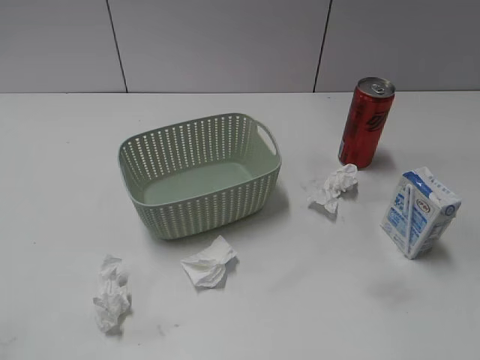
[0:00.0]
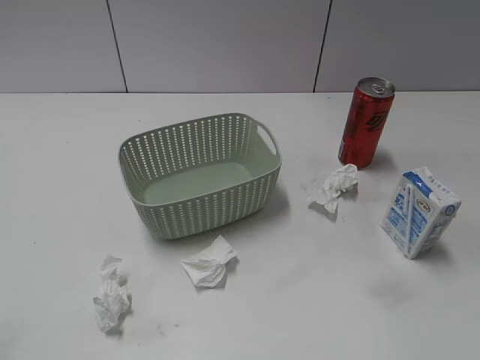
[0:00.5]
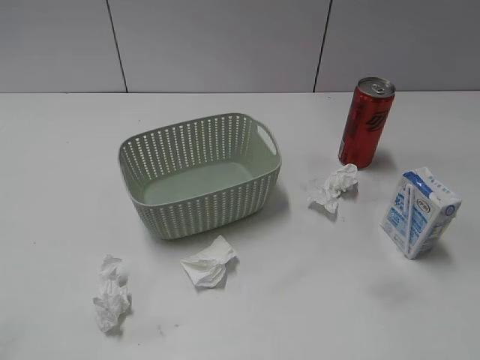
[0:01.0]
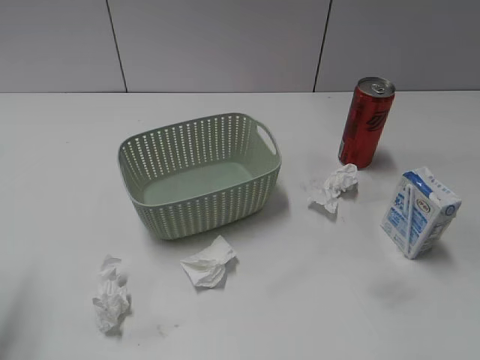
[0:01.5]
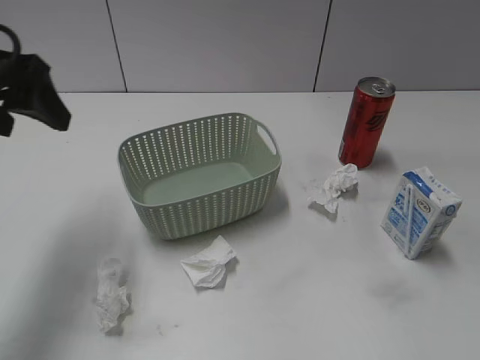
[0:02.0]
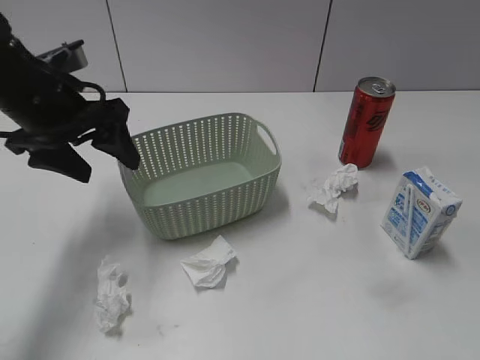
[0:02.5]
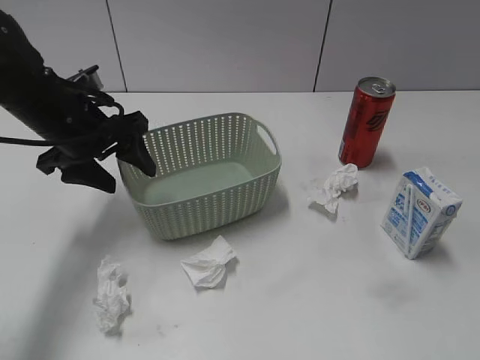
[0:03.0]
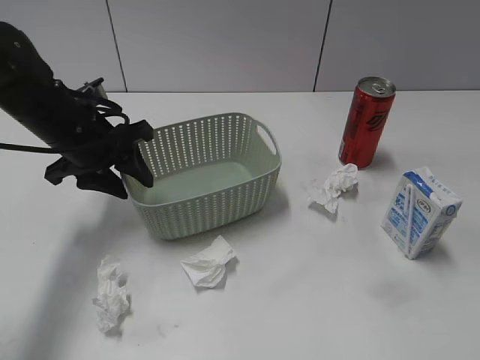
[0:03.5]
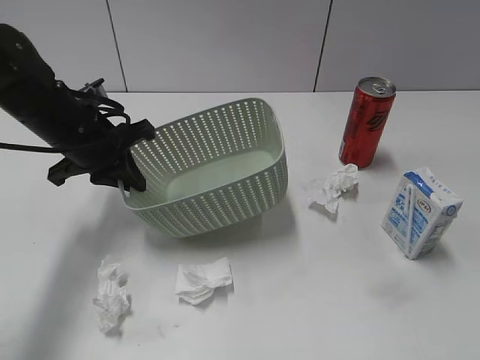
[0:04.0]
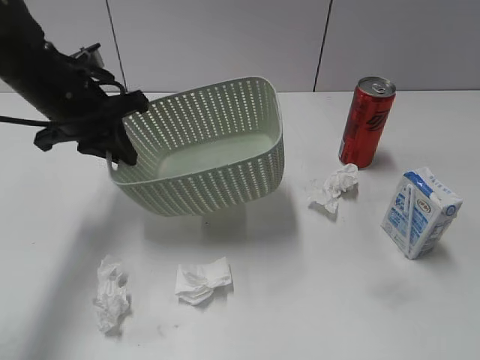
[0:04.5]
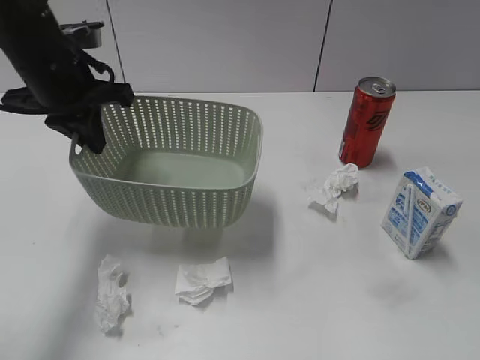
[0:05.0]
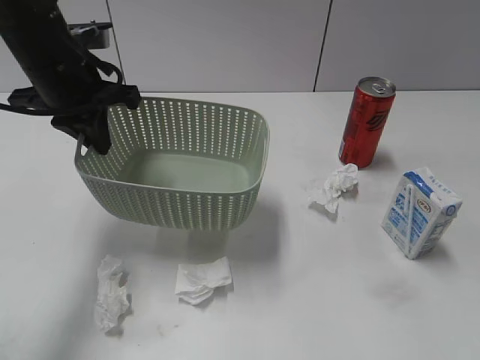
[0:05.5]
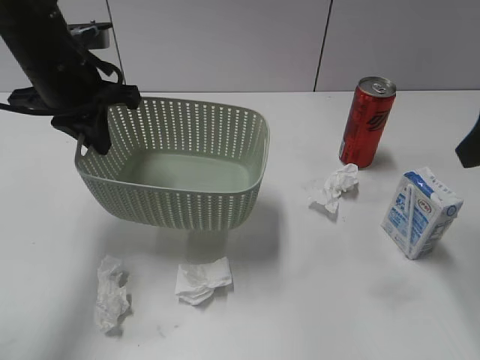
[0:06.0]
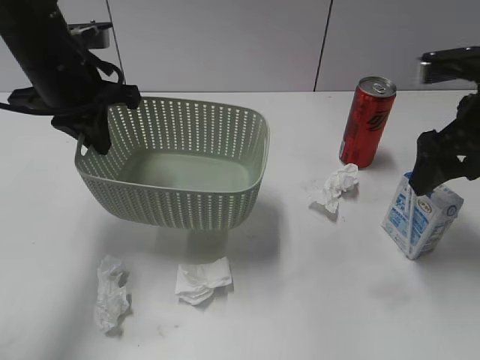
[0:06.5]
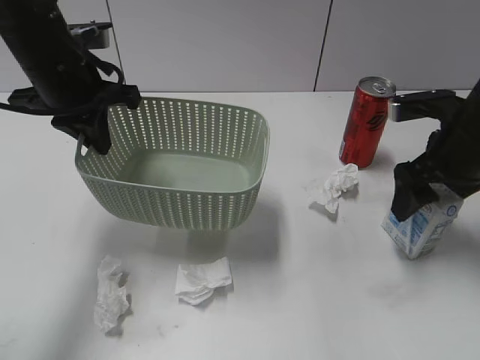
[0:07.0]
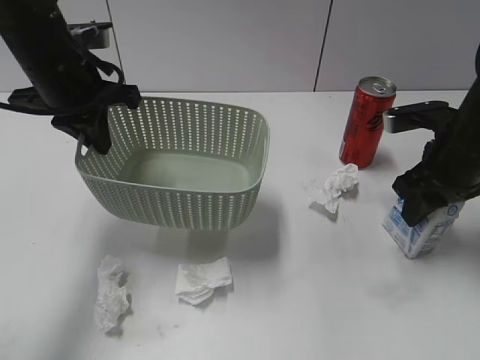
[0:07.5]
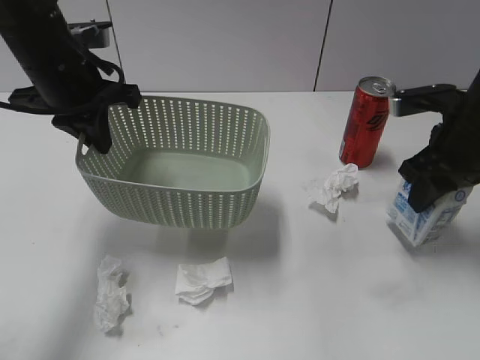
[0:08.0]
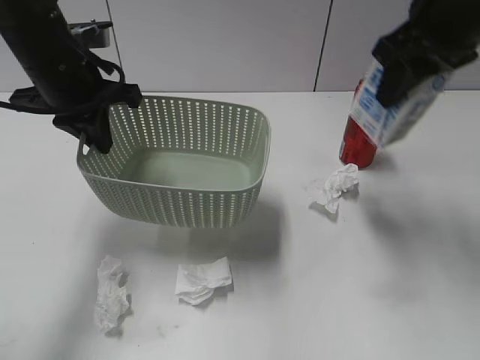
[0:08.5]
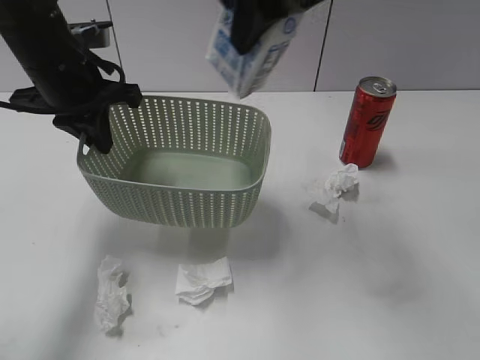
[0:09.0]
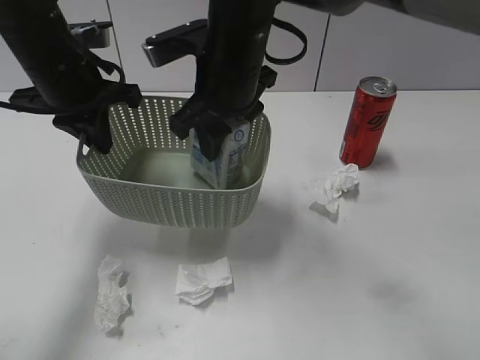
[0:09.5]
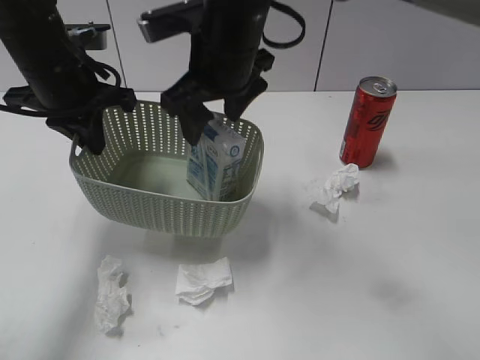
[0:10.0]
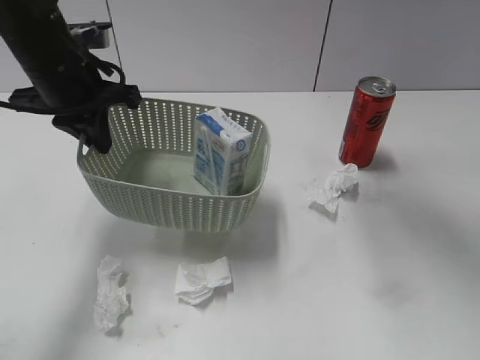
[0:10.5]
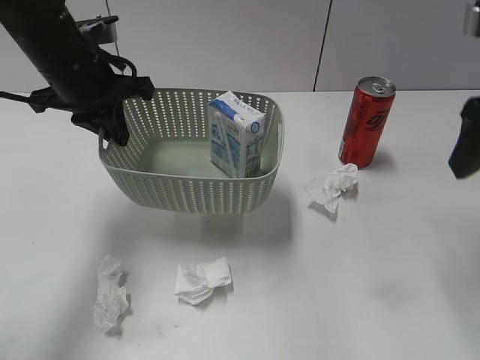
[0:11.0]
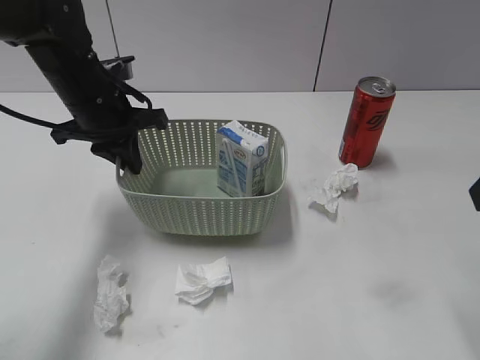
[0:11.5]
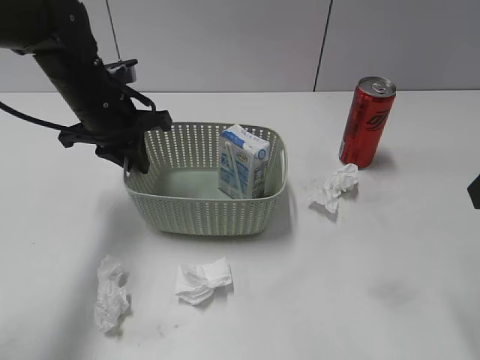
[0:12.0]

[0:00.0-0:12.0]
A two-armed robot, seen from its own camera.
Step, 0:02.0 to 0:03.5: Grasp the basket with left gripper.
Step, 0:04.0 to 0:05.0: Lift the basket with left gripper.
Step, 0:05.5 to 0:07.5: Grasp the milk with right gripper.
Step, 0:08.0 to 0:10.0: Place the milk in the basket with right gripper.
0:02.0 to 0:04.0: The left gripper moves downward, forward and to the right, some 15 cm, and closes its fingers.
0:04.0 to 0:06.0: The right gripper goes approximately 25 cm forward, and opens its fingers, while the left gripper shifts approximately 10 cm upward.
0:06.0 to 0:08.0: The right gripper is displaced downward and forward by some 15 cm, and closes up.
0:08.0 to 0:10.0: The right gripper heads to the left, covering approximately 25 cm, and opens up.
0:10.0 to 0:12.0: The left gripper goes about 5 cm downward. The right gripper goes some 30 cm to the right and backward.

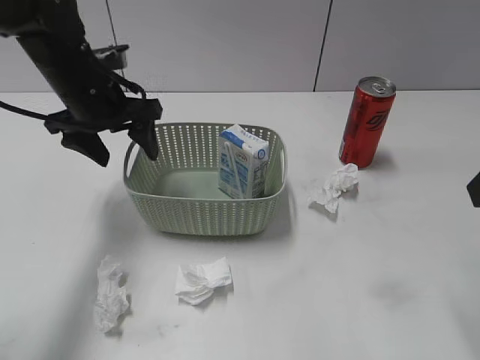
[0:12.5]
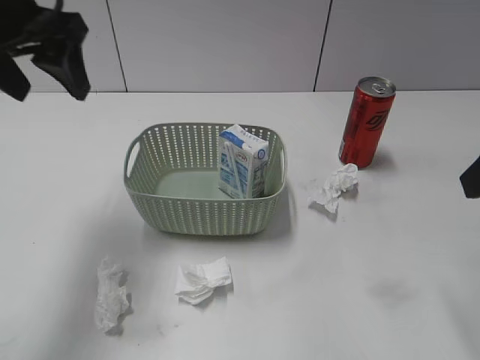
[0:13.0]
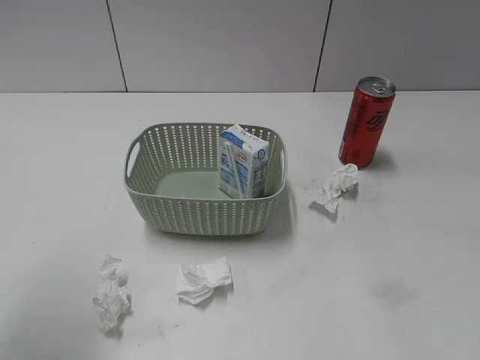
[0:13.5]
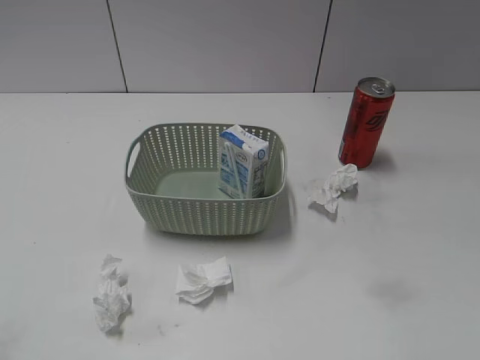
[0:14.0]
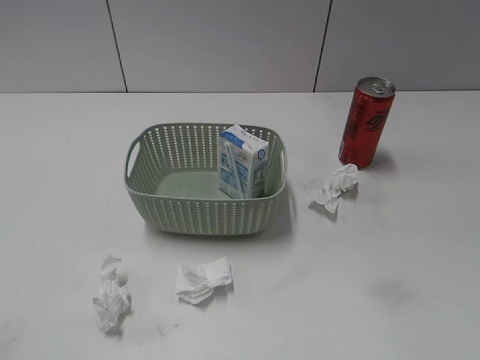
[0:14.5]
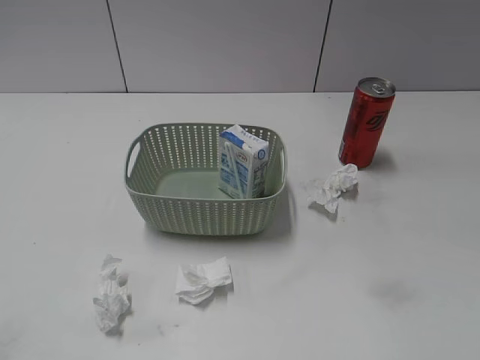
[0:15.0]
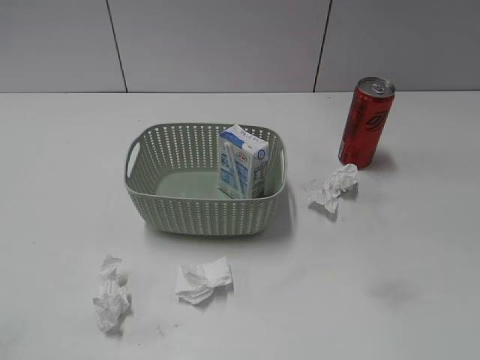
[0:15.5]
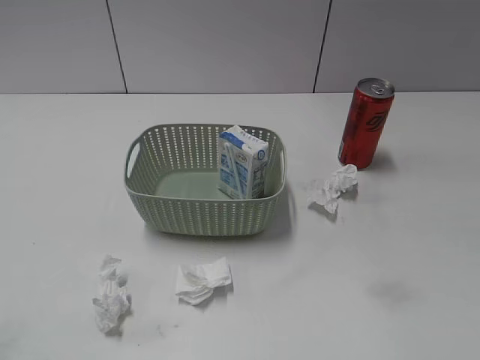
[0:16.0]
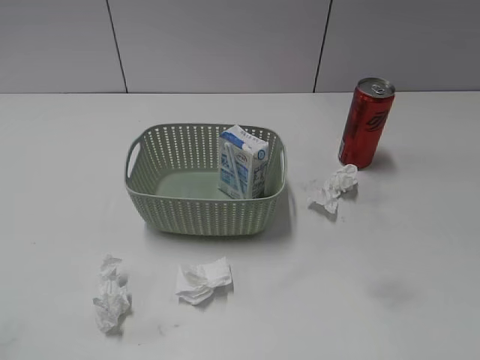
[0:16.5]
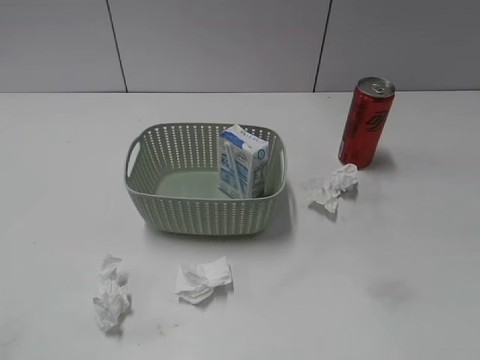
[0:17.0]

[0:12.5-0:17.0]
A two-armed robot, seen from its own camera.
0:12.5 to 0:14.5: The right gripper travels backward by roughly 15 cm, while the left gripper travels backward and to the left by some 40 cm.
